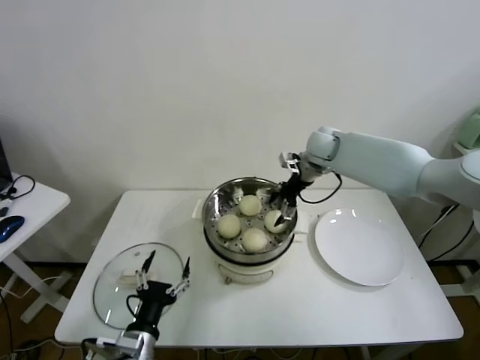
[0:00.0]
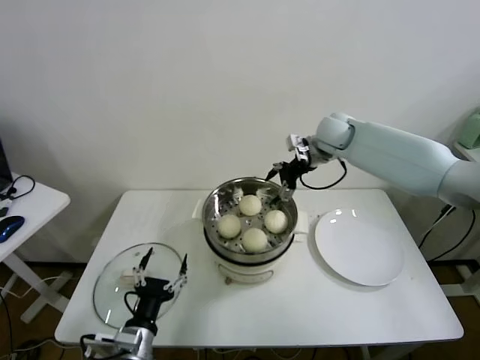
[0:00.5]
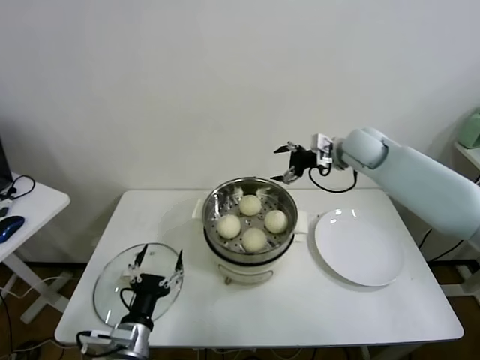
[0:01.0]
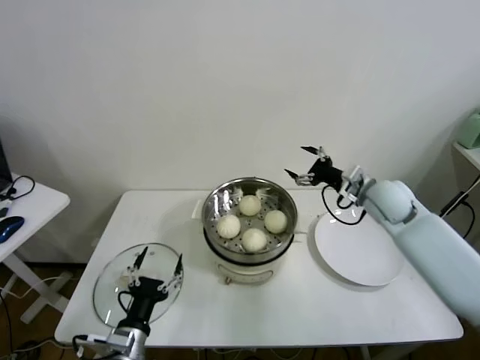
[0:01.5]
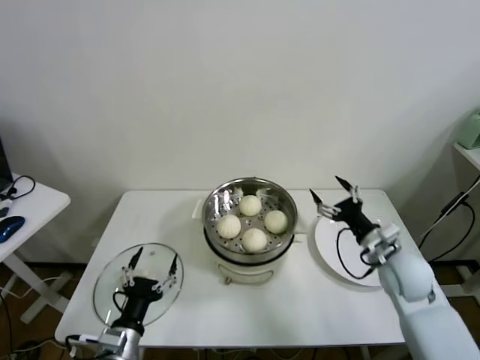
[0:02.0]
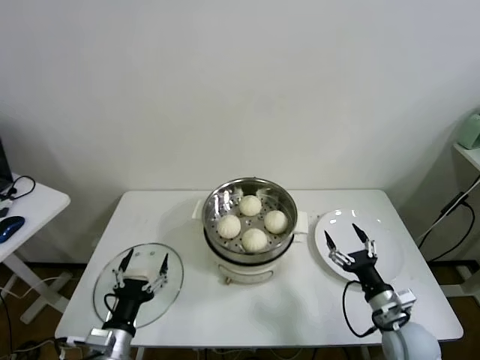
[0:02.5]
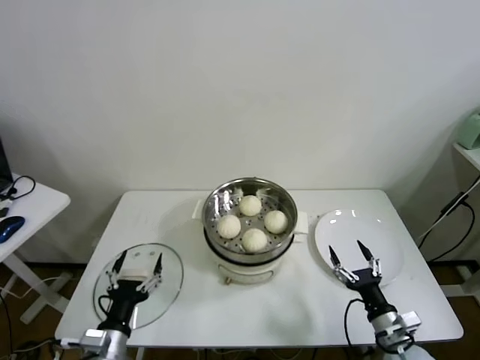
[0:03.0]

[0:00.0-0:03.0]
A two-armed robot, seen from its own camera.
Task of the whole recording: take steamed baozi put them in steamer.
0:00.0 to 0:01.5: The right gripper moves backward and to the right, some 15 cm.
0:01.5 to 0:03.0: The right gripper heads backward and downward, covering approximately 35 cm.
